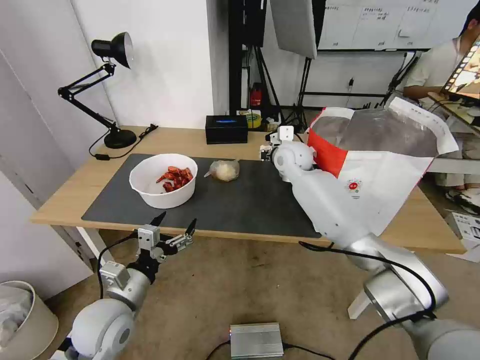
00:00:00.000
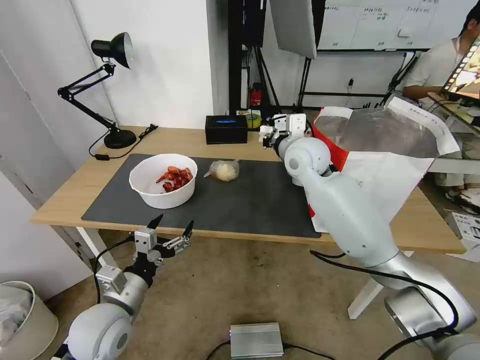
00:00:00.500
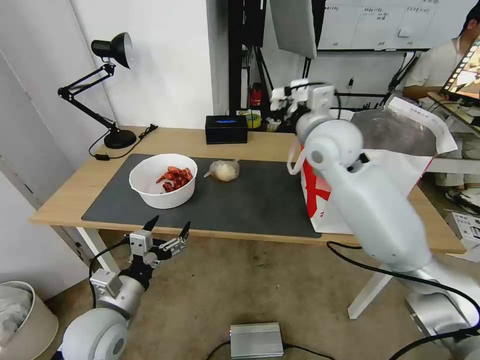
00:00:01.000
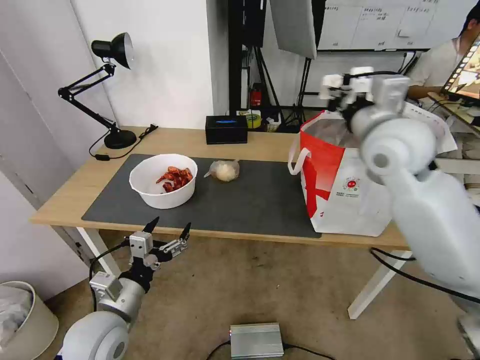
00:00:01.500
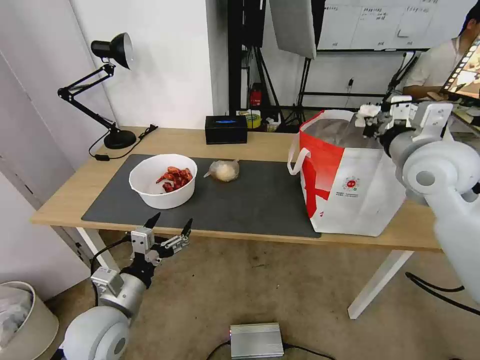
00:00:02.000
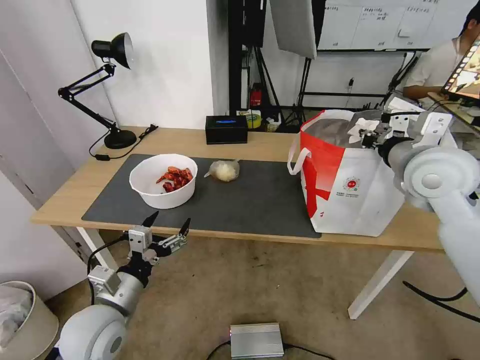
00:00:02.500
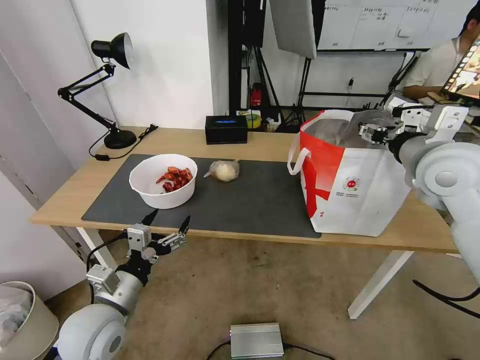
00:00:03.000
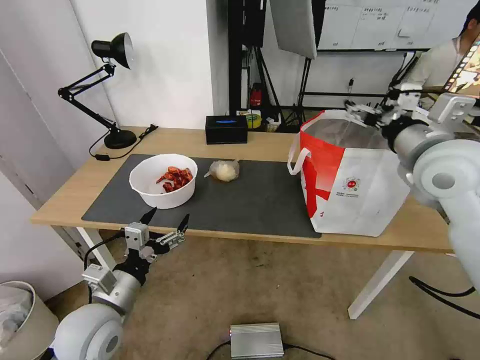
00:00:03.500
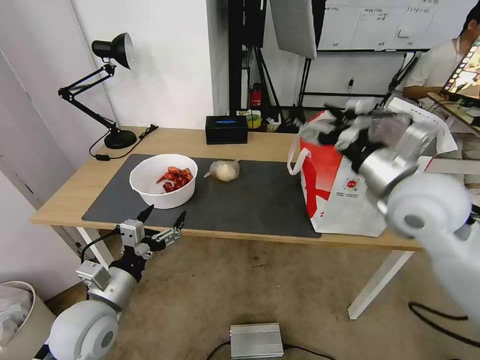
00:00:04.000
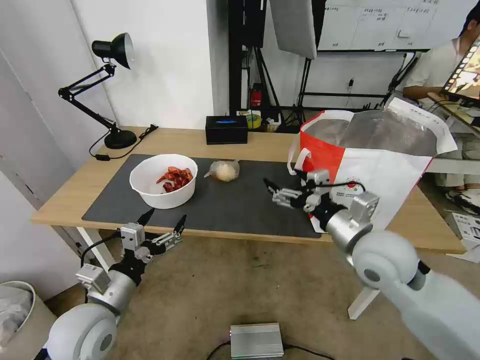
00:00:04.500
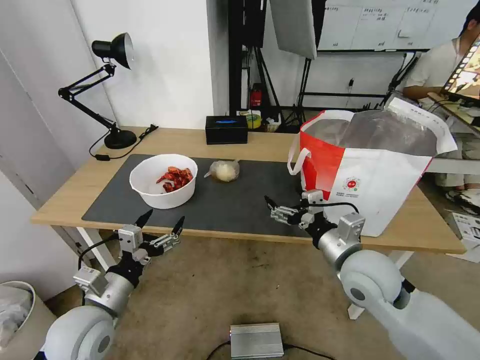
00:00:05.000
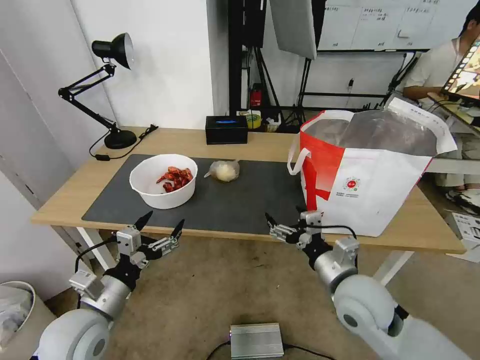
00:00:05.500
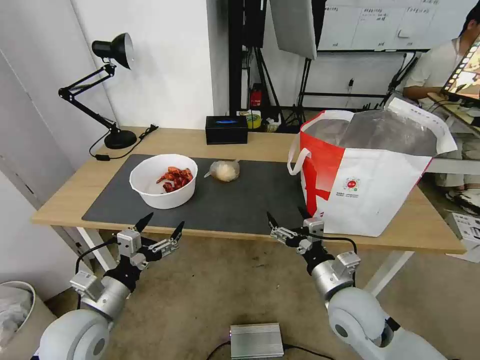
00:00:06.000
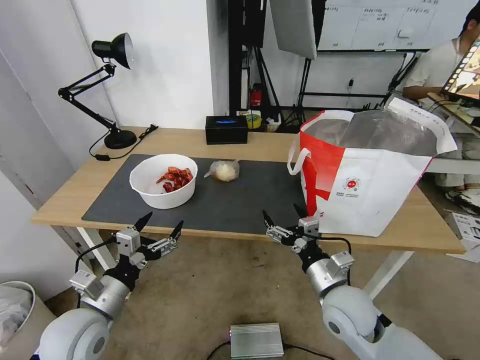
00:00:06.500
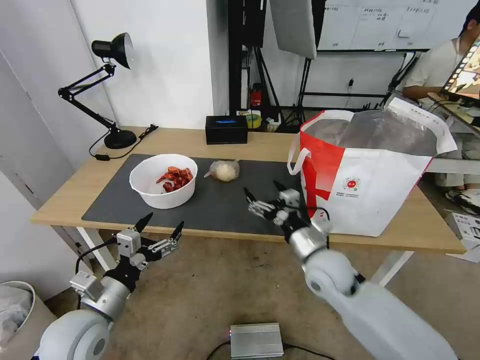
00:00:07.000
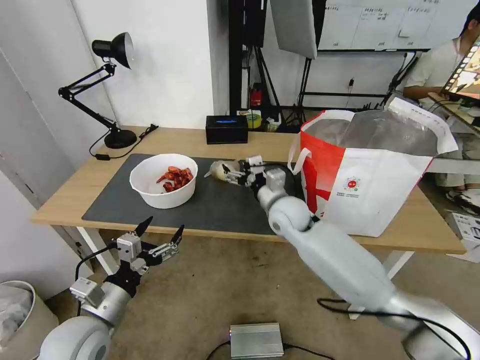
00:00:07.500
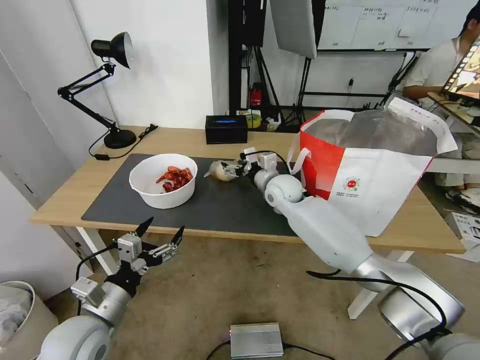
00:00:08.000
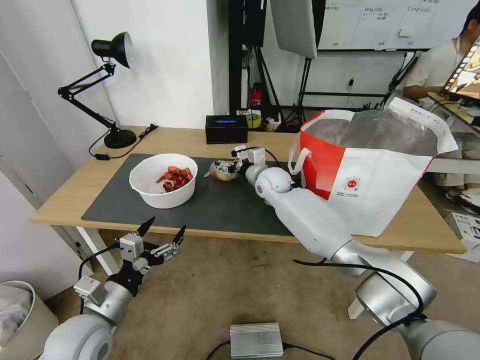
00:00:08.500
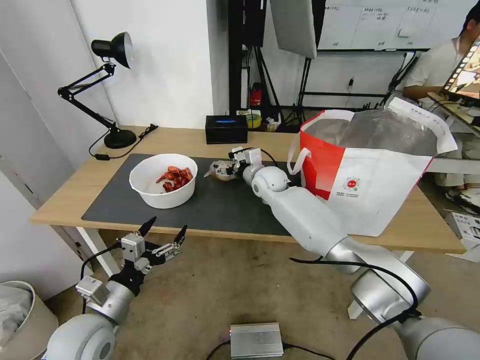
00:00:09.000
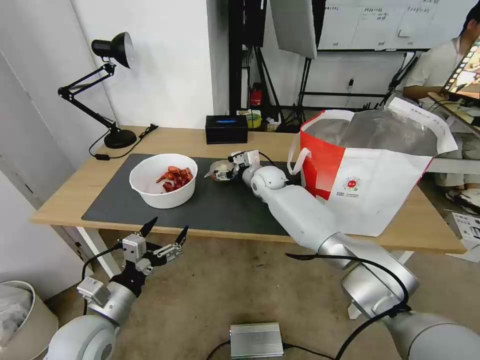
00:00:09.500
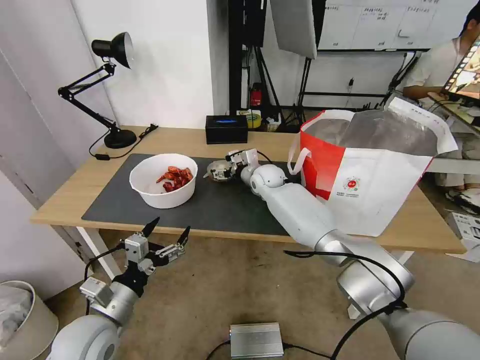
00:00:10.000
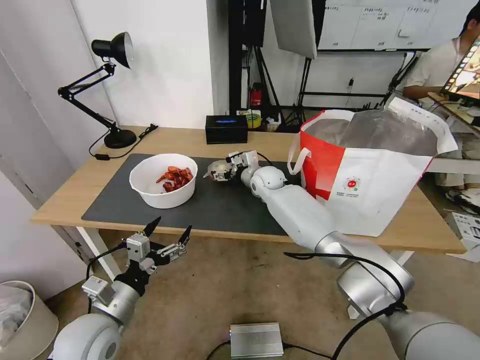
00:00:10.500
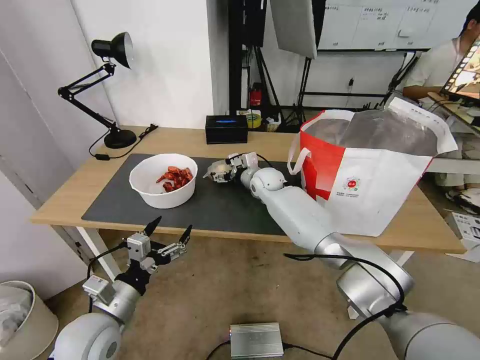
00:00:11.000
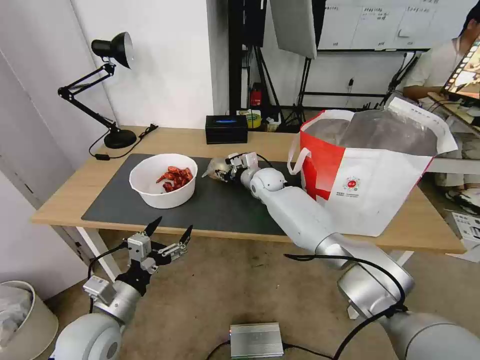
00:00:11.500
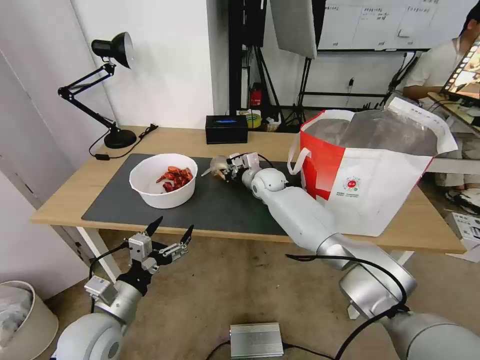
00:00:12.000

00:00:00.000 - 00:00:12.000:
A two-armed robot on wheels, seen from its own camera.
Task of the whole recording: Pick up the trash from the table and place it into the takeout bag.
00:00:00.000 - 00:00:02.000: The right gripper moves backward, to the right and upward, some 30 cm.
00:00:02.000 - 00:00:04.000: The right gripper shifts roughly 10 cm backward and to the left, and opens.
00:00:04.000 - 00:00:06.000: The right gripper heads downward and backward, covering roughly 25 cm.
00:00:06.000 - 00:00:08.000: The right gripper goes some 30 cm forward.
00:00:08.000 - 00:00:10.000: The right gripper goes some 5 cm forward.
00:00:10.000 - 00:00:12.000: The right gripper closes its fingers.

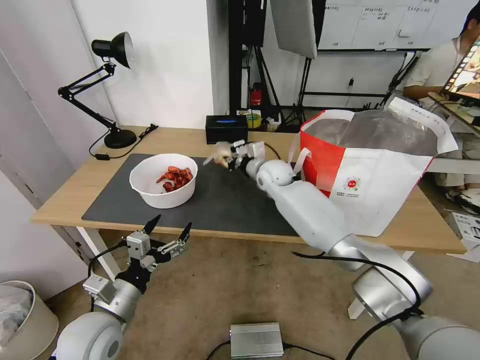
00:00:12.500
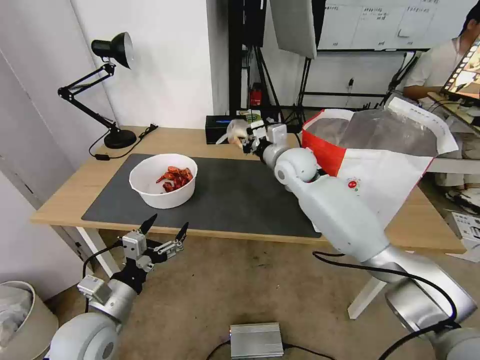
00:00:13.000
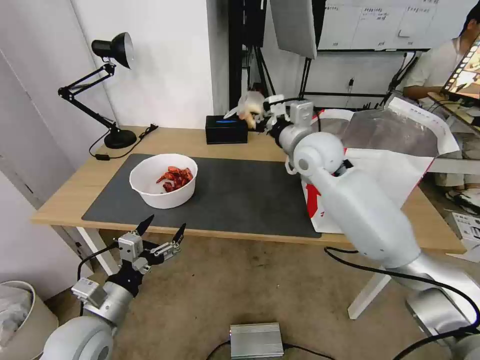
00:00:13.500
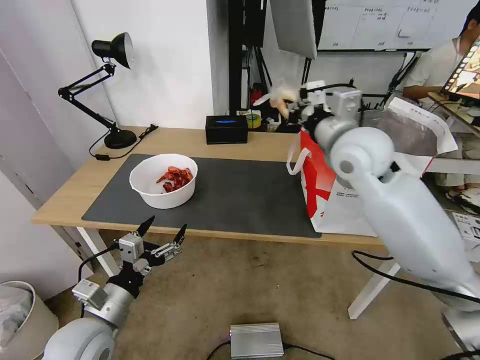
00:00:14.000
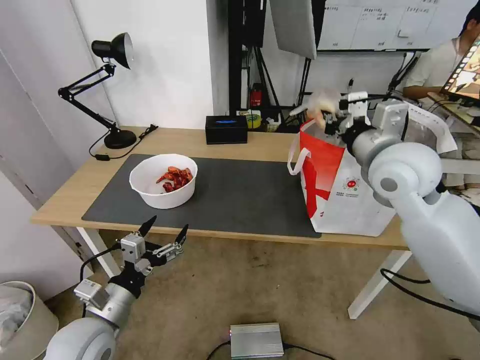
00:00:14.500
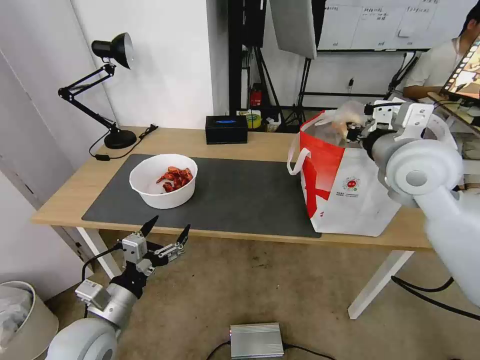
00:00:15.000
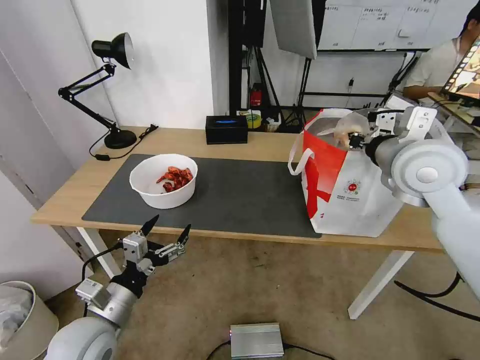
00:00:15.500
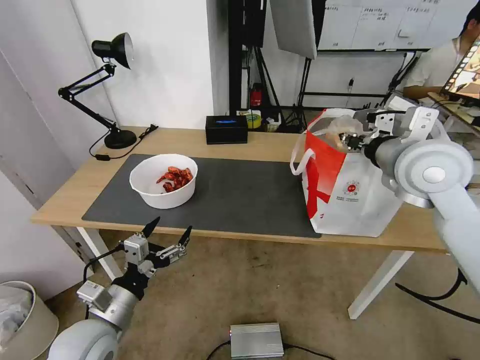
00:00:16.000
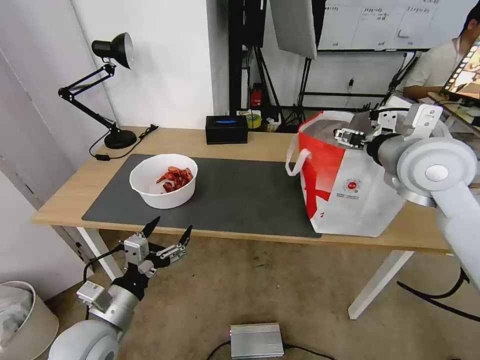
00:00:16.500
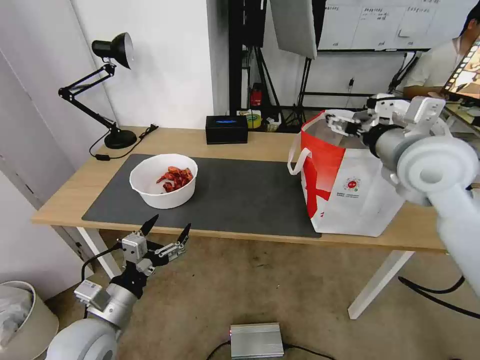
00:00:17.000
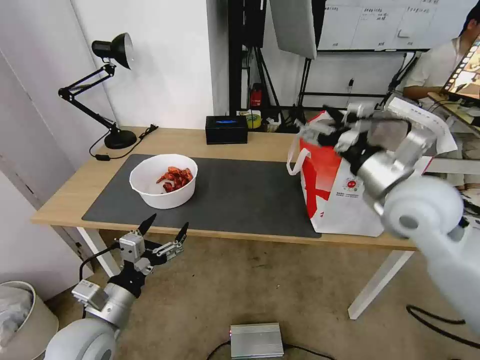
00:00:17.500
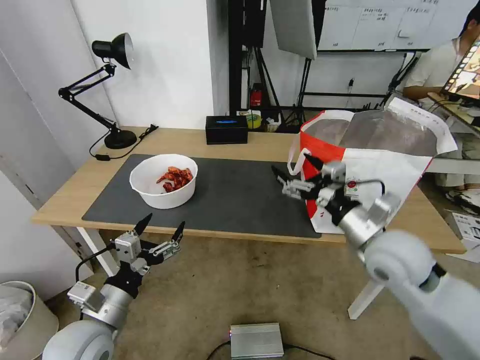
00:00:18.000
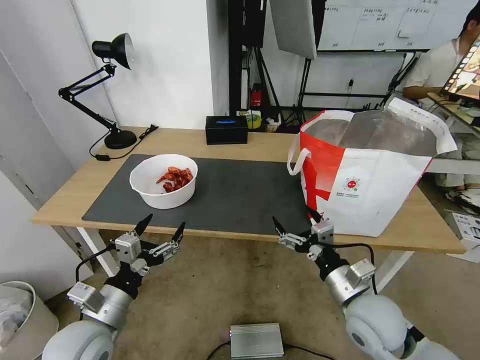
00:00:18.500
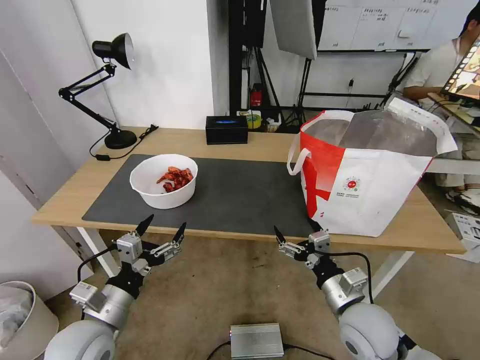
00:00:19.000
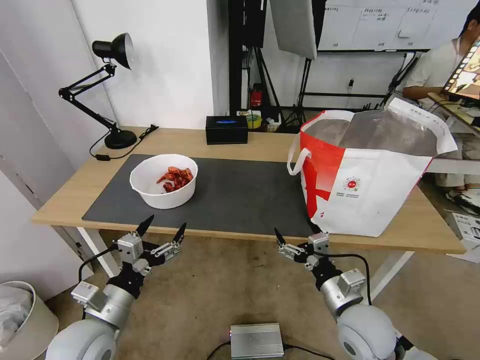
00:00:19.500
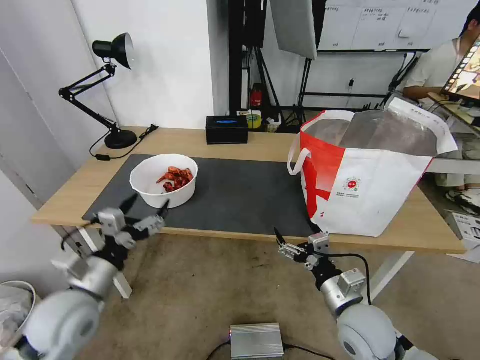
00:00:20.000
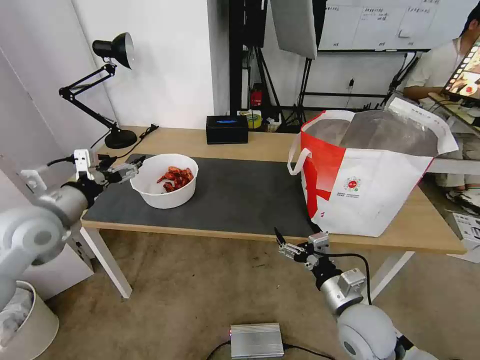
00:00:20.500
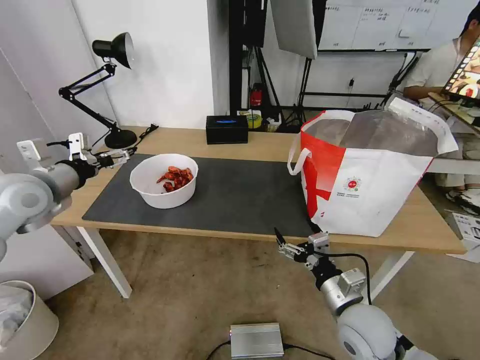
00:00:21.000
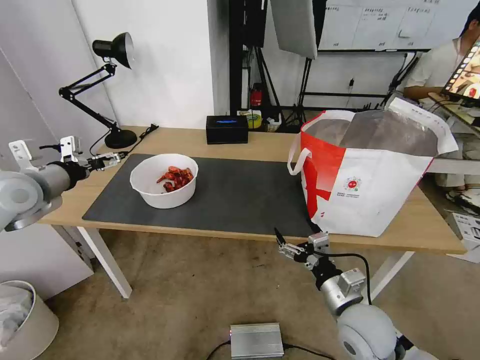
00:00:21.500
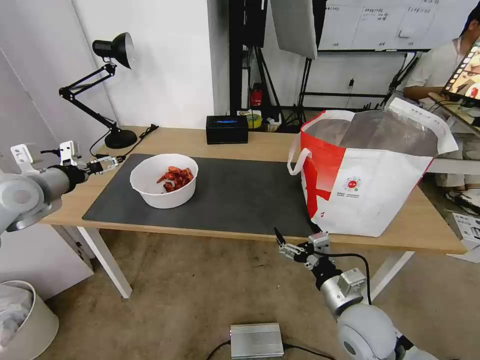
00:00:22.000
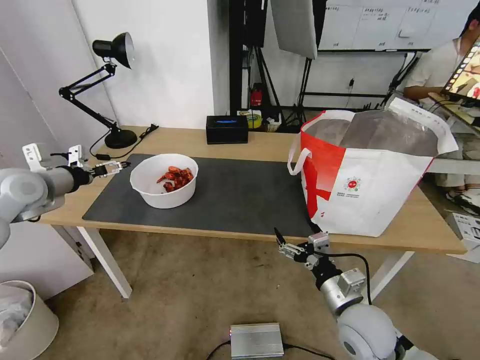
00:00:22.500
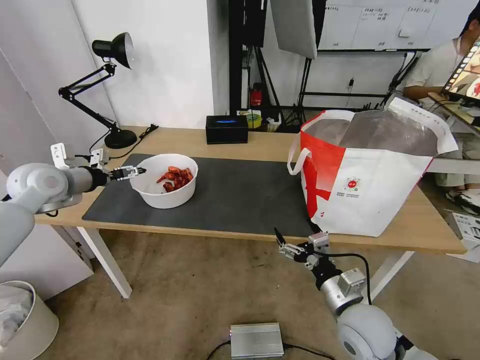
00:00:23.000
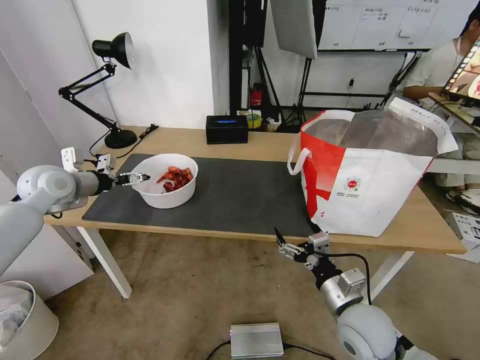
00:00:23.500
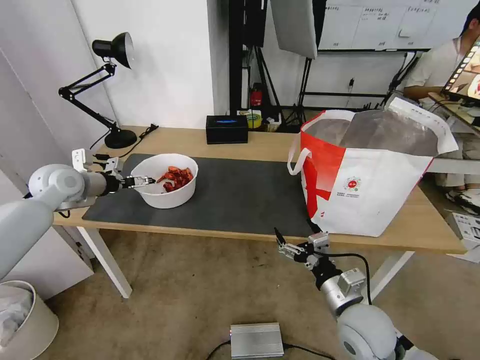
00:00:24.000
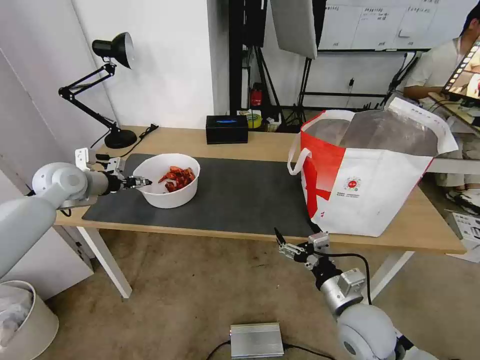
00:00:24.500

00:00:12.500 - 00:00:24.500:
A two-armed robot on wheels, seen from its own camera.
Task of the whole recording: Pick up the trash from the table and place it into the takeout bag.
00:00:12.500 - 00:00:14.500: The right gripper is displaced backward, upward and to the right by roughly 30 cm.
00:00:14.500 - 00:00:16.500: The right gripper opens its fingers.
00:00:16.500 - 00:00:18.500: The right gripper heads downward and backward, covering some 30 cm.
00:00:18.500 - 00:00:20.500: The left gripper shifts roughly 25 cm forward, upward and to the left.
00:00:20.500 - 00:00:22.500: The left gripper heads forward and to the left, covering about 10 cm.
00:00:22.500 - 00:00:24.500: The left gripper heads forward, covering about 5 cm, and closes up.

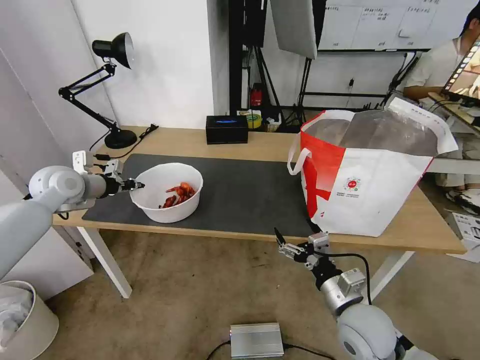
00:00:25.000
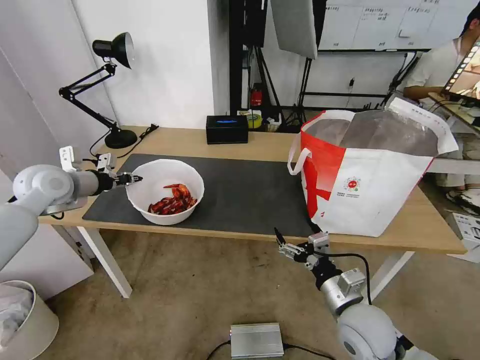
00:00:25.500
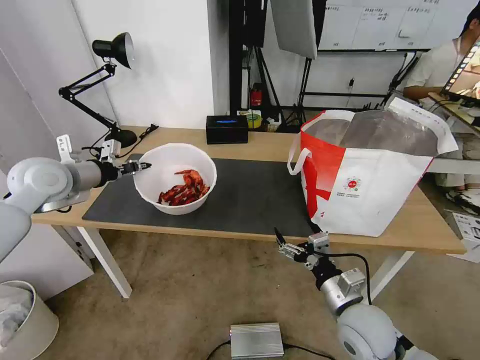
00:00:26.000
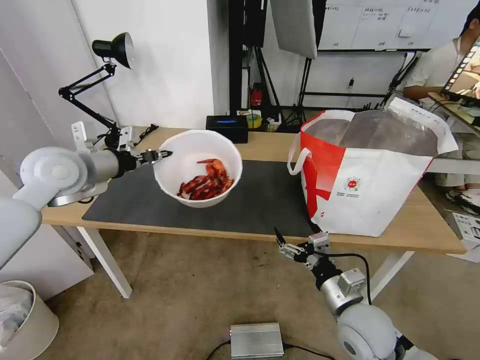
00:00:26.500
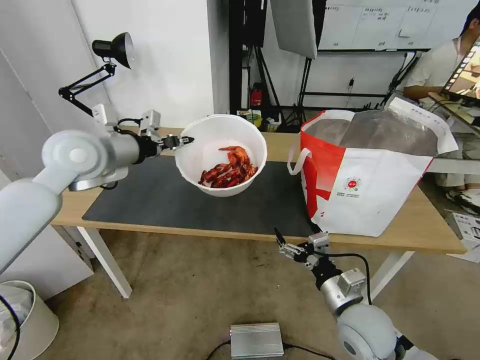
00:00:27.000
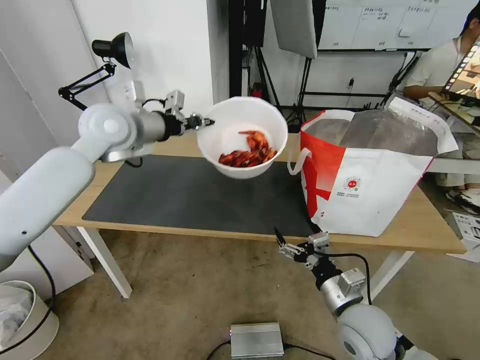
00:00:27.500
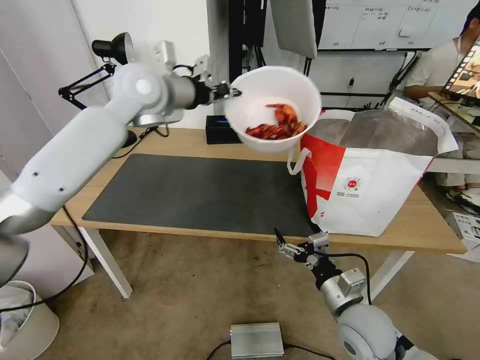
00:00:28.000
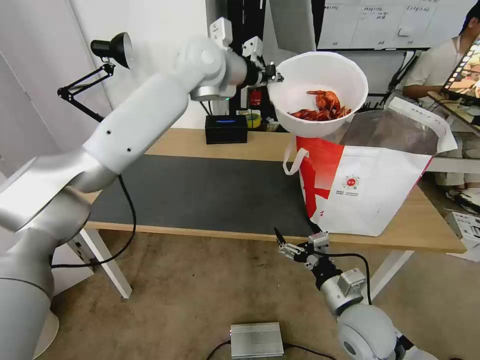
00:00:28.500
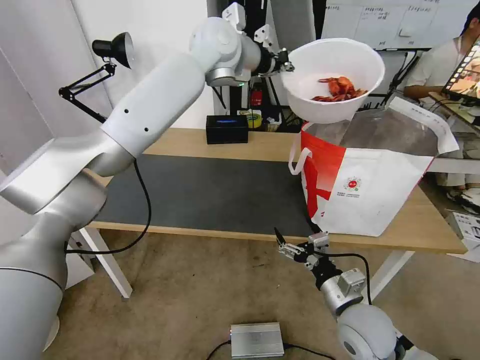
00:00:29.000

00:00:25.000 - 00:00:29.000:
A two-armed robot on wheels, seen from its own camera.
Task of the whole recording: Pick up the trash from the table and place it into the takeout bag.
00:00:25.000 - 00:00:27.000: The left gripper moves to the right and upward, roughly 15 cm.
00:00:27.000 - 00:00:29.000: The left gripper shifts roughly 30 cm to the right, forward and upward.
